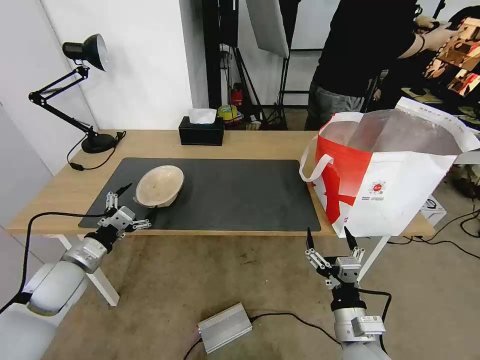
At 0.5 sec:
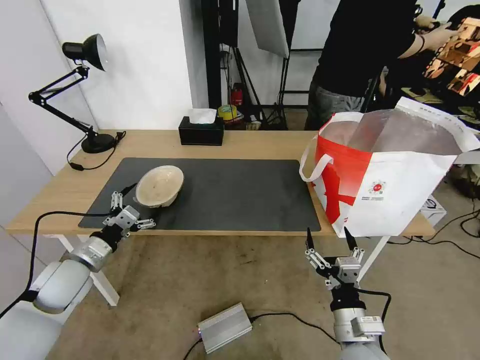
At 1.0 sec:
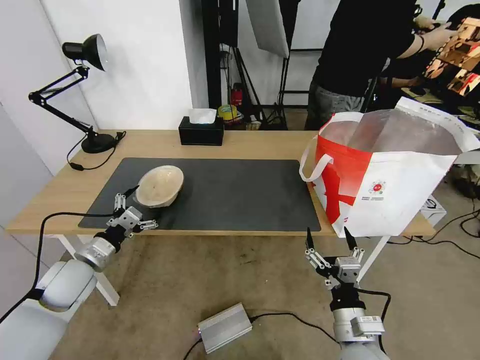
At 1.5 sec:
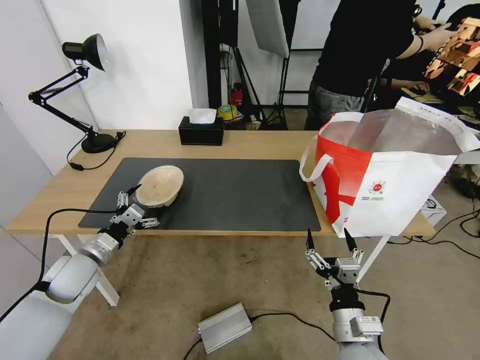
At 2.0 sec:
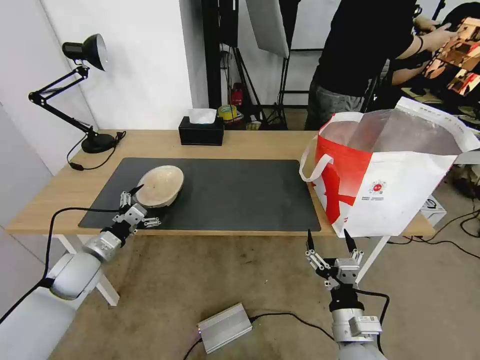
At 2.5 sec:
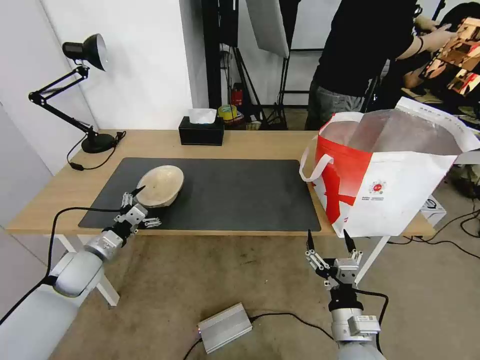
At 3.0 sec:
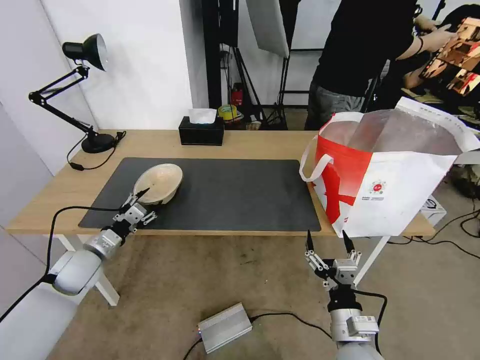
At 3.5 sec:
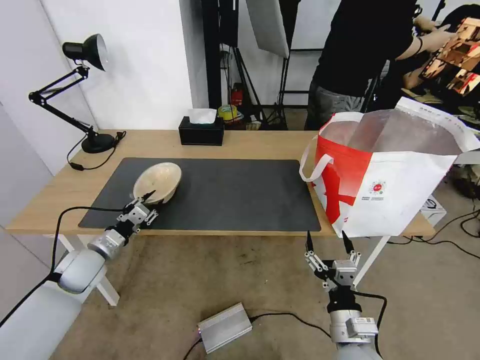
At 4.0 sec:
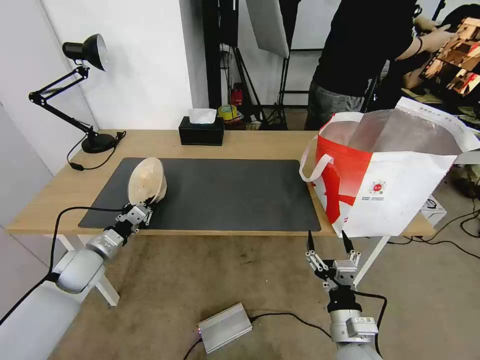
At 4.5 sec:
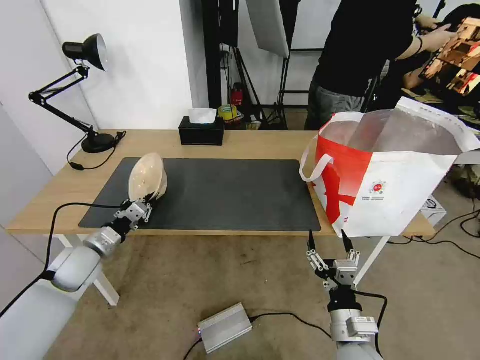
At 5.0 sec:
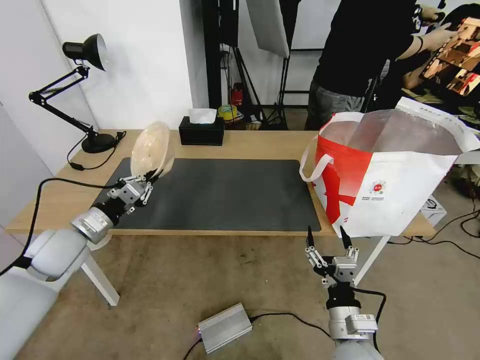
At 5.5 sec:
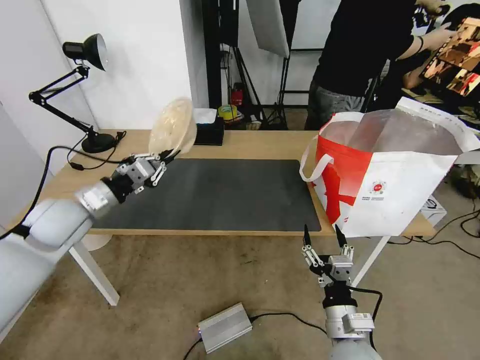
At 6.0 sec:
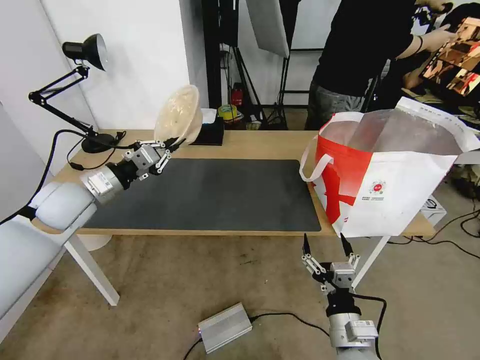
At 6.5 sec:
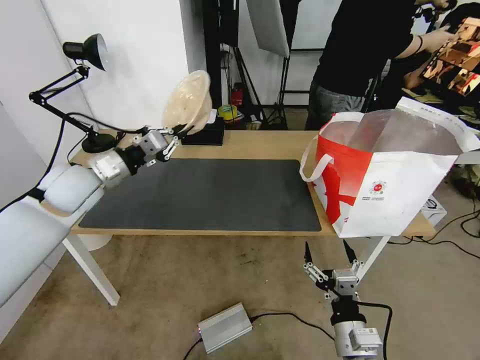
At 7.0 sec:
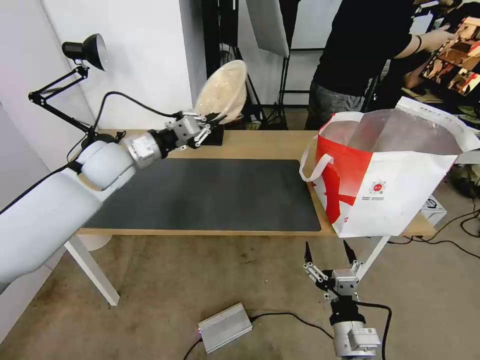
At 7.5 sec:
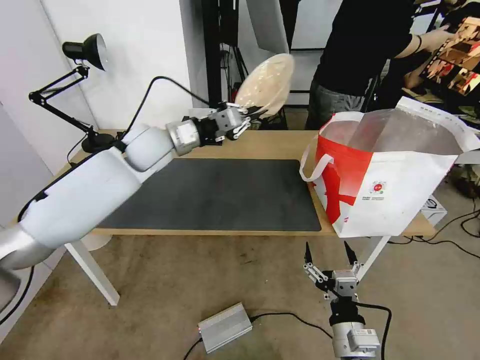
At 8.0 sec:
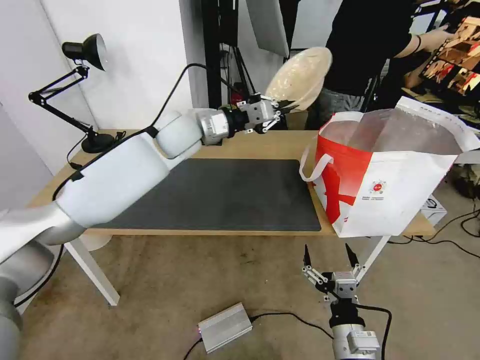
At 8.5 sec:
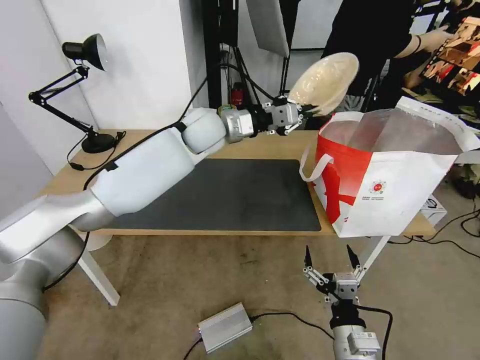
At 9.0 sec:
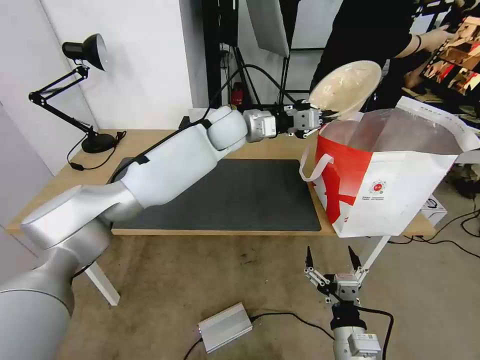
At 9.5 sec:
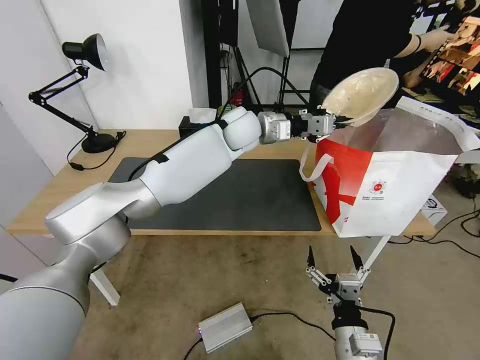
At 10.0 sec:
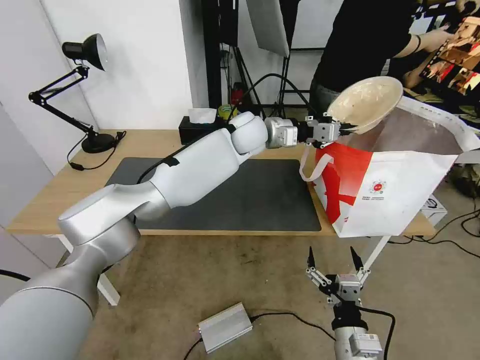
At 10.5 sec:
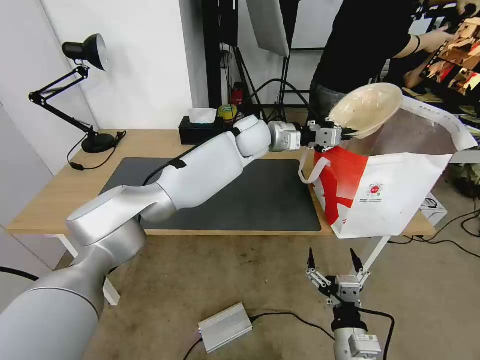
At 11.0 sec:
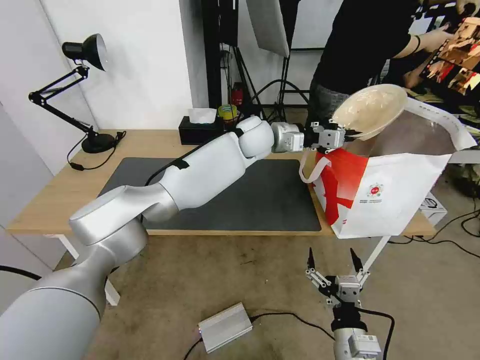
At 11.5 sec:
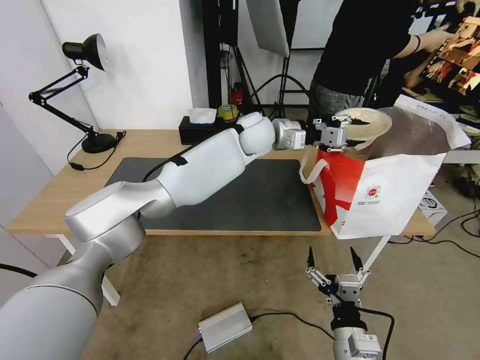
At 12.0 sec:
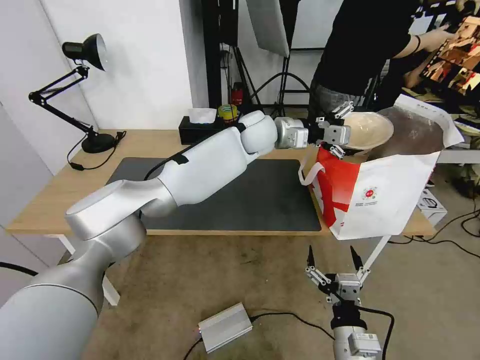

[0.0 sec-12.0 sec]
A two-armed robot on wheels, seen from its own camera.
Task of the whole recording: Pick up the trash from the table and place it into the takeout bag.
0.0 sec to 2.0 sec: The grippers stay close to where they were, moving slightly.
2.0 sec to 4.0 sec: The left gripper closes its fingers.
4.0 sec to 6.0 sec: The left gripper travels upward by roughly 20 cm.
6.0 sec to 8.0 sec: The left gripper travels to the right and forward by about 25 cm.
8.0 sec to 10.0 sec: The left gripper heads to the right, covering some 15 cm.
10.0 sec to 12.0 sec: The left gripper opens.

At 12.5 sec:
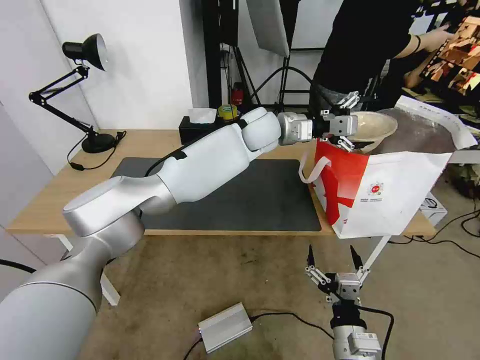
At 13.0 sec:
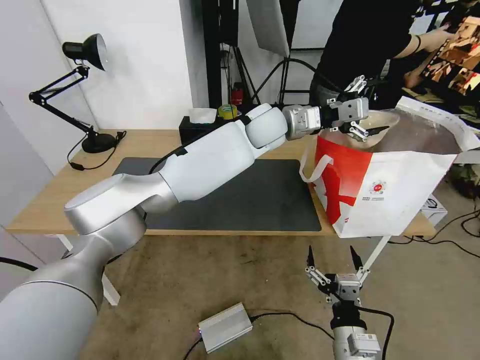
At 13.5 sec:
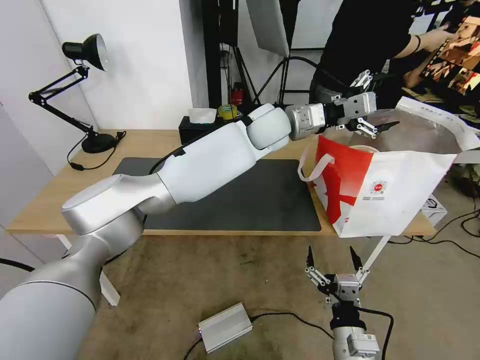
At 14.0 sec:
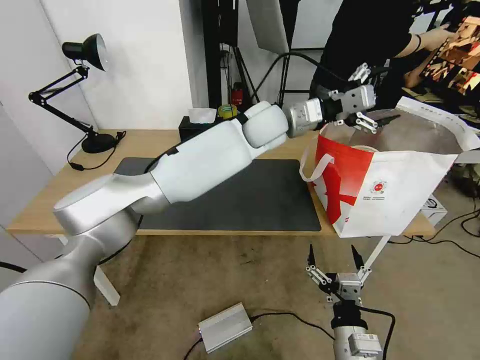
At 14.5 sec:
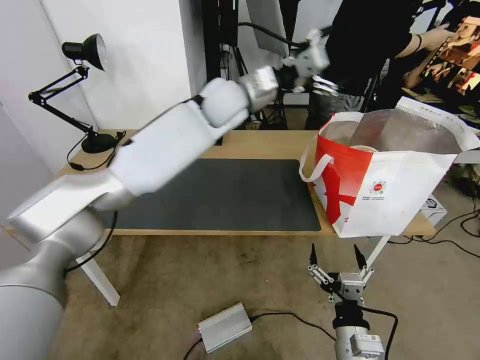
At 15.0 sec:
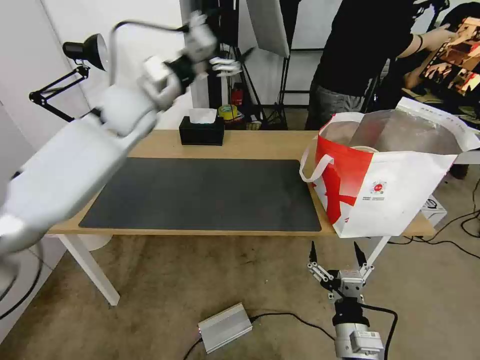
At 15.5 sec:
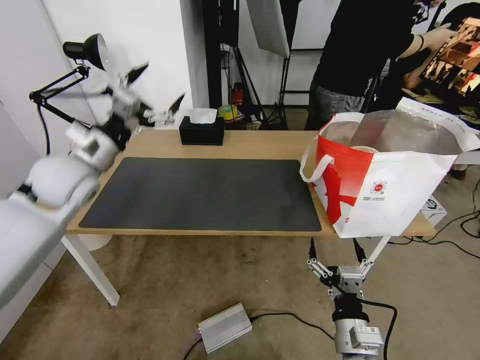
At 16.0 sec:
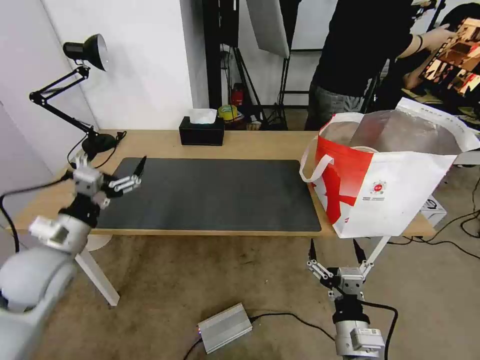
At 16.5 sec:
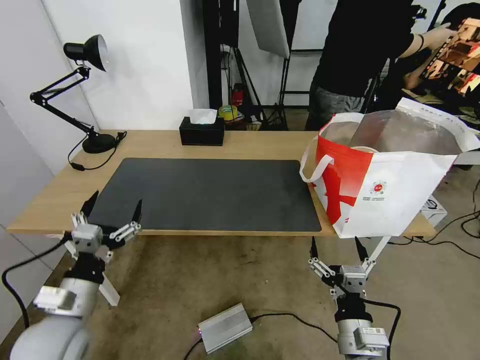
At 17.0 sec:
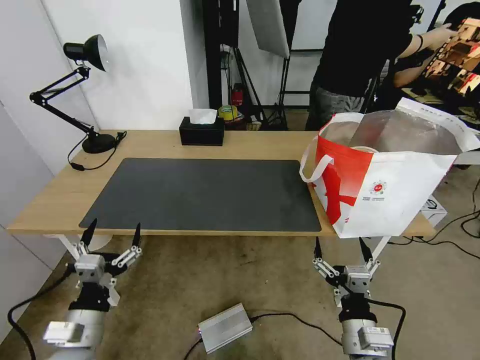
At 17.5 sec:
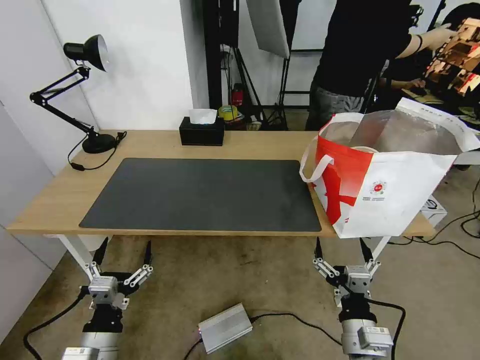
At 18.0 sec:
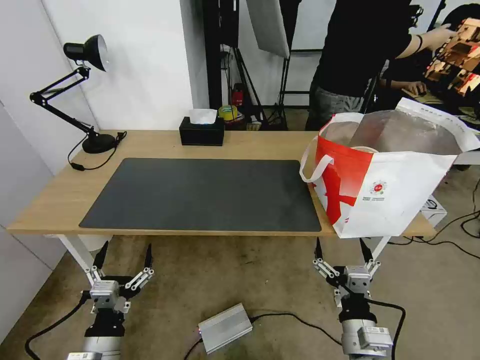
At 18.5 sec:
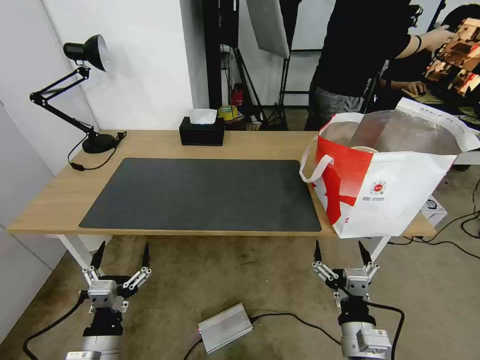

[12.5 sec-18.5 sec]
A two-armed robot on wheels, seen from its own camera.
Task of the whole recording: Pick up the trash from the table and place it into the takeout bag.
12.5 sec to 14.5 sec: The left gripper is displaced to the left and upward by some 10 cm.
14.5 sec to 16.5 sec: The left gripper goes approximately 50 cm backward, to the left and downward.
16.5 sec to 18.5 sec: The left gripper travels downward, backward and to the right by some 15 cm.
